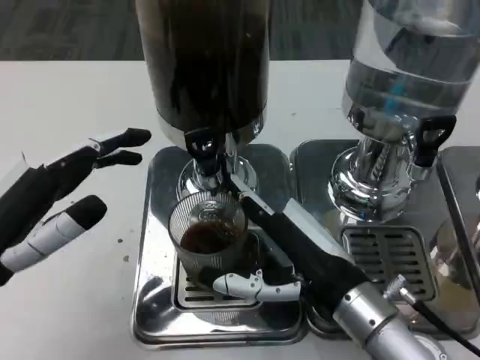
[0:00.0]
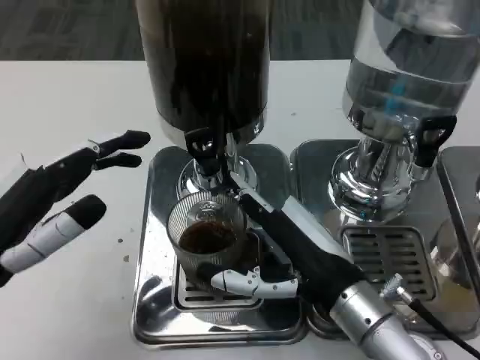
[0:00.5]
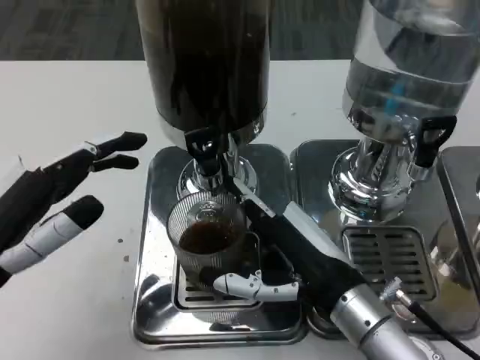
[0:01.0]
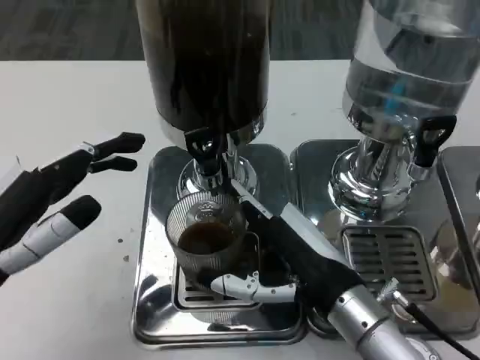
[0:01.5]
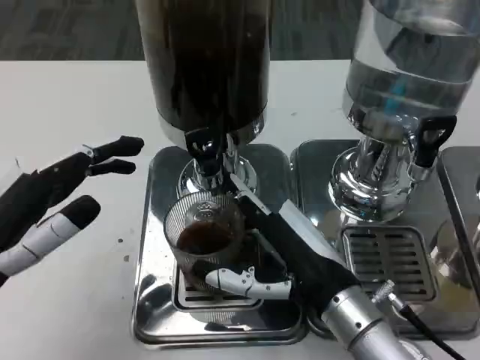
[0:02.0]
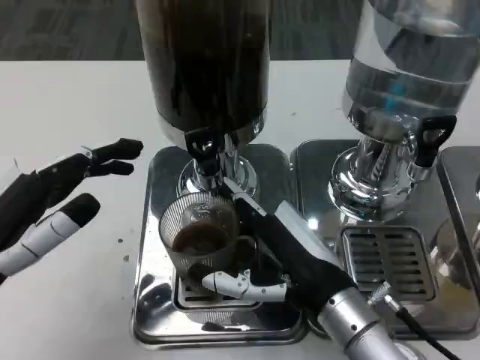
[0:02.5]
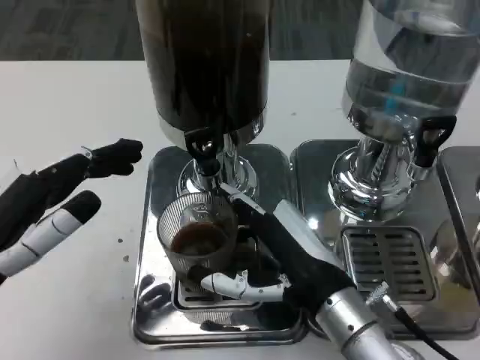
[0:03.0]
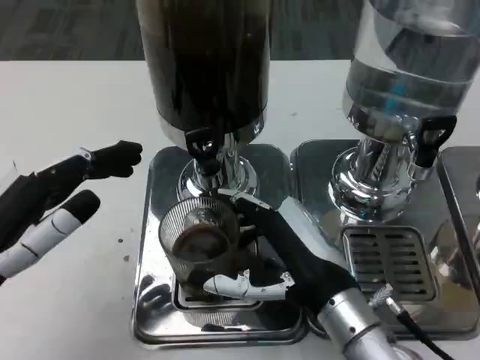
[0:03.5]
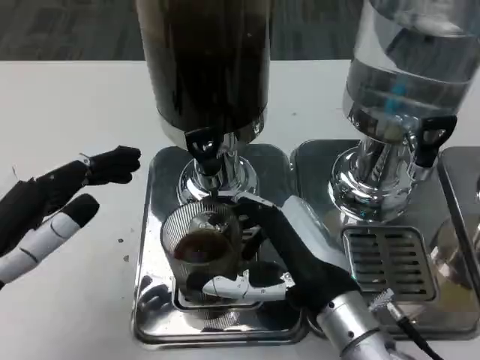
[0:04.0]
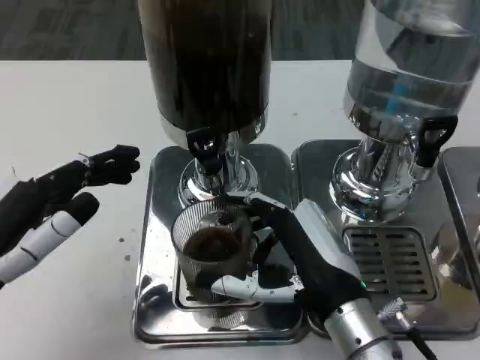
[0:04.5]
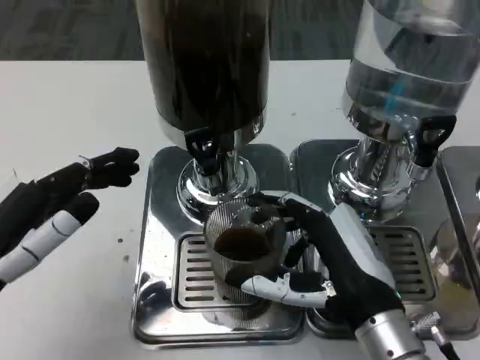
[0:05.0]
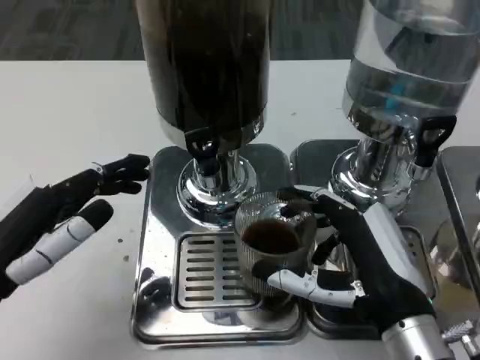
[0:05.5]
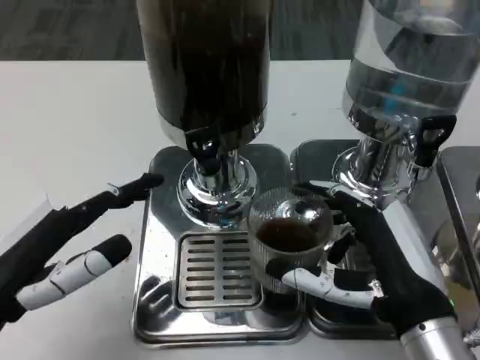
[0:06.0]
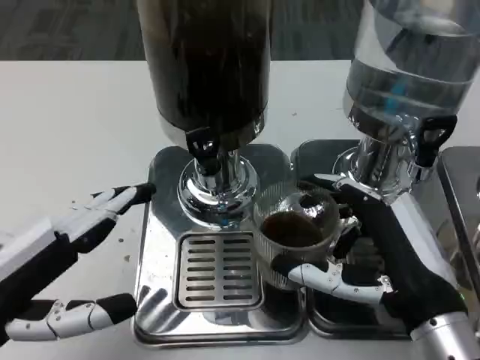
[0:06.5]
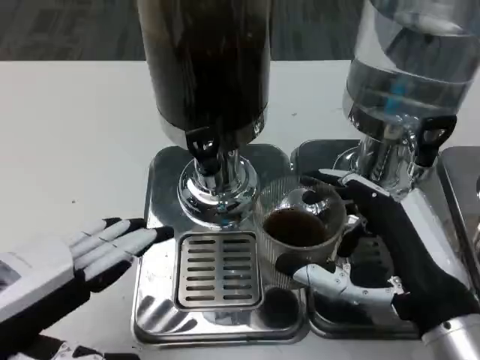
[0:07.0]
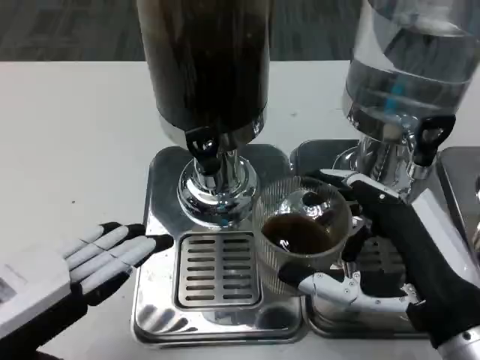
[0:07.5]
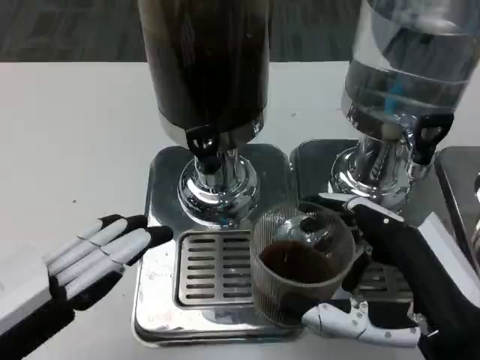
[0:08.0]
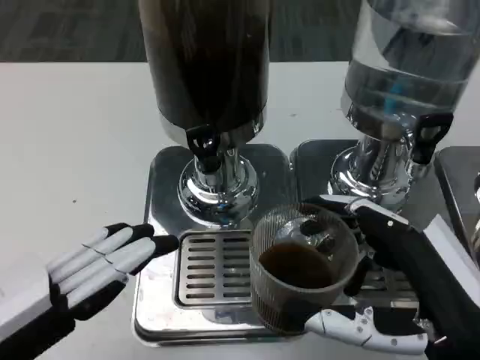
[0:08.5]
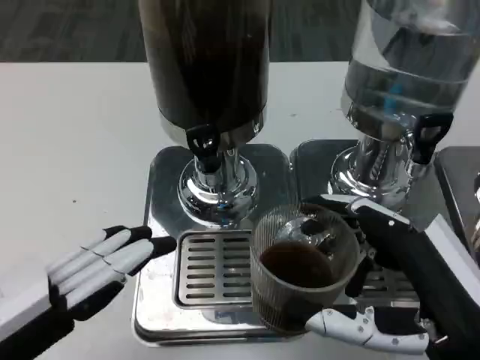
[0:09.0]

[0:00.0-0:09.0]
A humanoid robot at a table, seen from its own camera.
Task of the whole recording: Grasp the cup under the faucet to collect the drink, then remove the cup.
0:00.0 to 0:02.0: Neither hand changes place.
0:02.0 to 0:04.5: The hands make only small movements.
0:04.5 to 0:07.0: The right hand goes some 5 cm to the right.
0:07.0 to 0:09.0: The right hand moves roughly 5 cm.

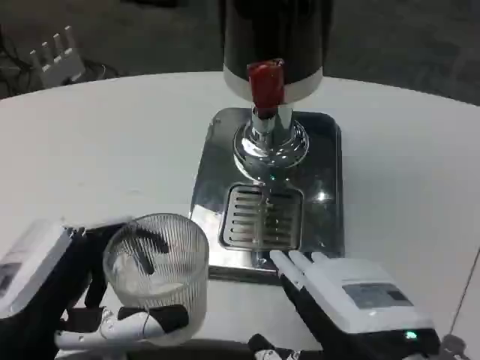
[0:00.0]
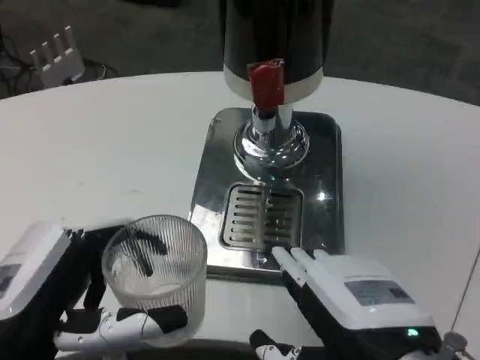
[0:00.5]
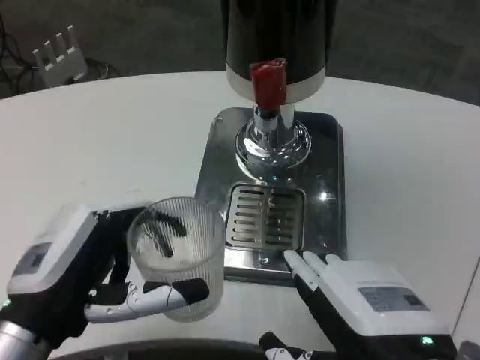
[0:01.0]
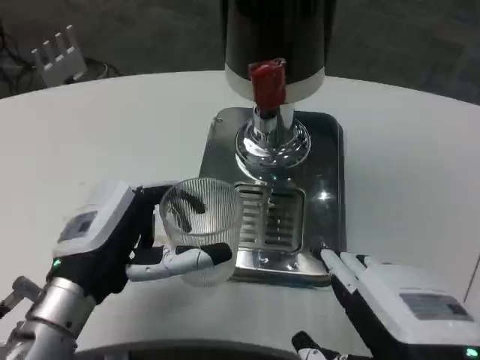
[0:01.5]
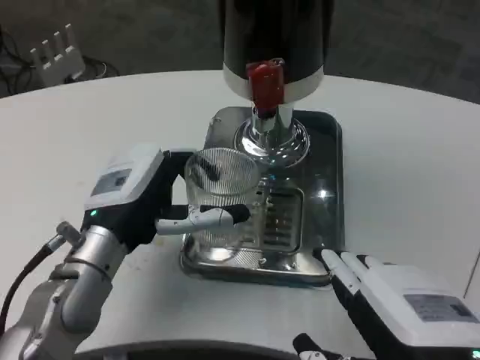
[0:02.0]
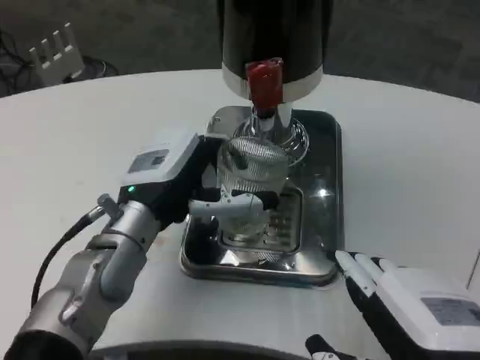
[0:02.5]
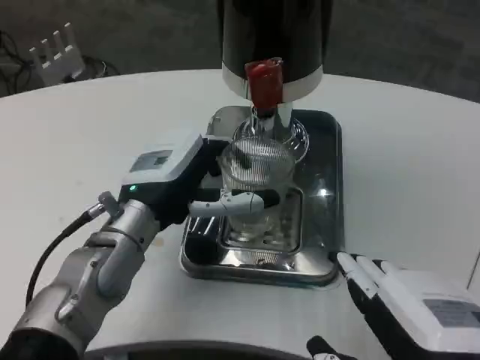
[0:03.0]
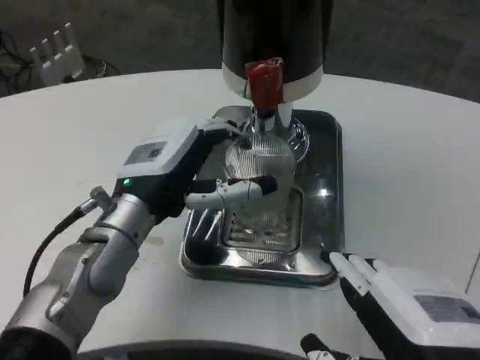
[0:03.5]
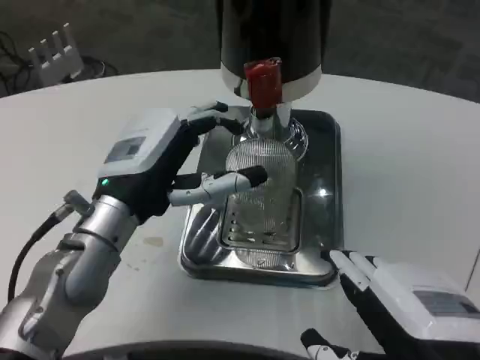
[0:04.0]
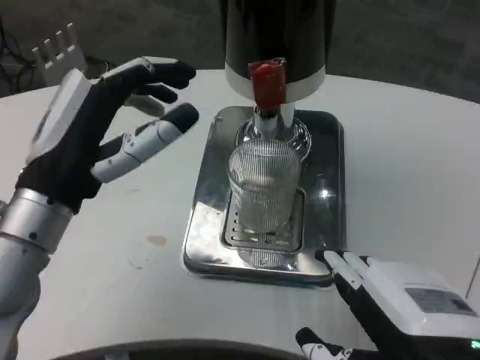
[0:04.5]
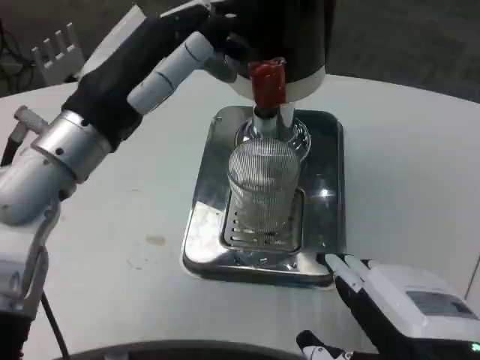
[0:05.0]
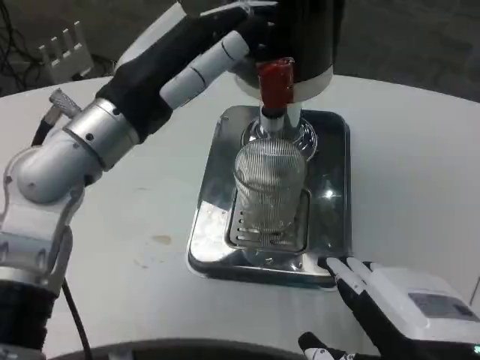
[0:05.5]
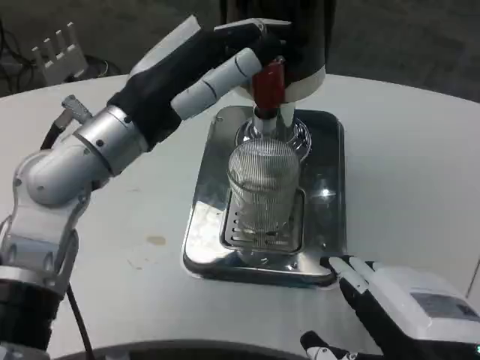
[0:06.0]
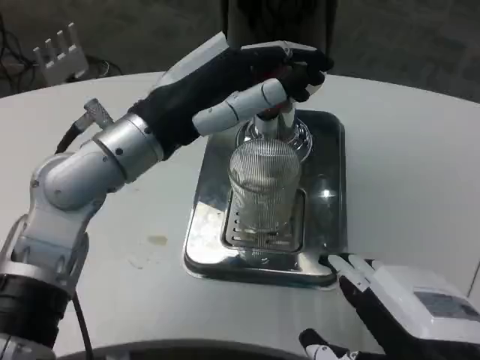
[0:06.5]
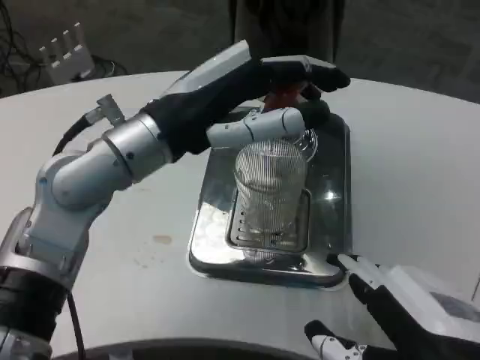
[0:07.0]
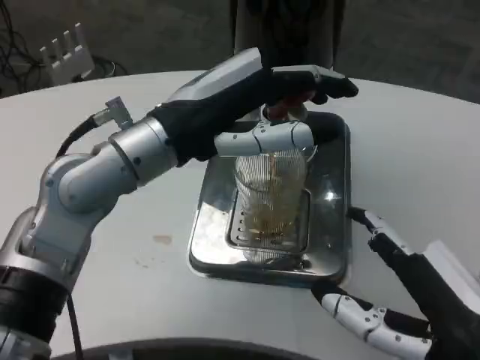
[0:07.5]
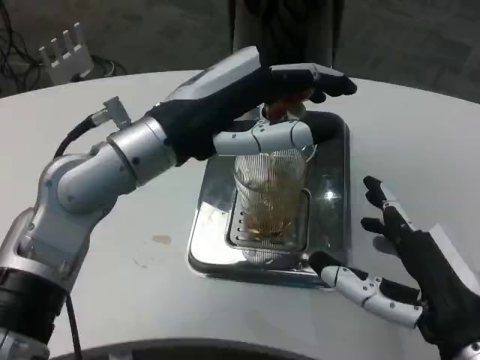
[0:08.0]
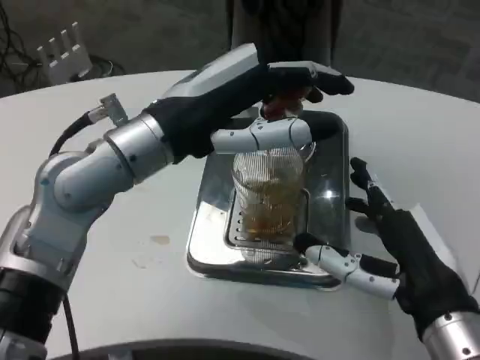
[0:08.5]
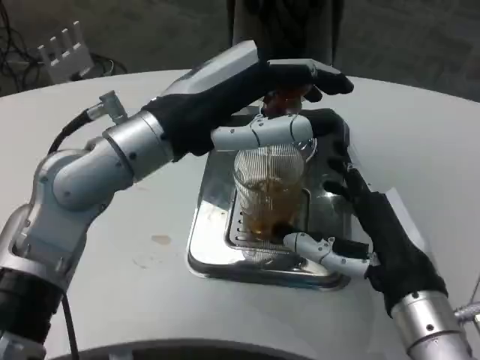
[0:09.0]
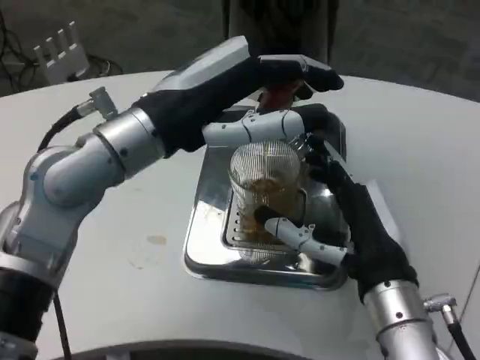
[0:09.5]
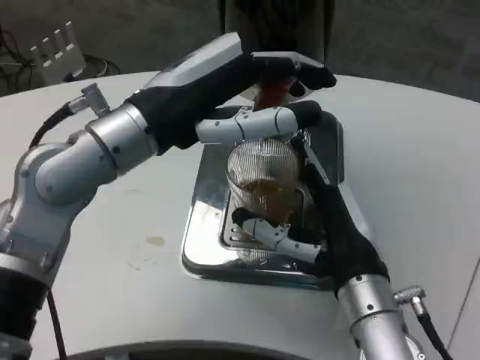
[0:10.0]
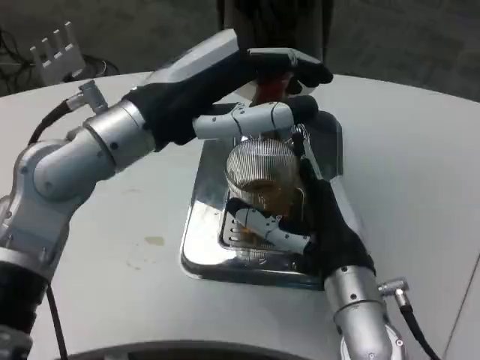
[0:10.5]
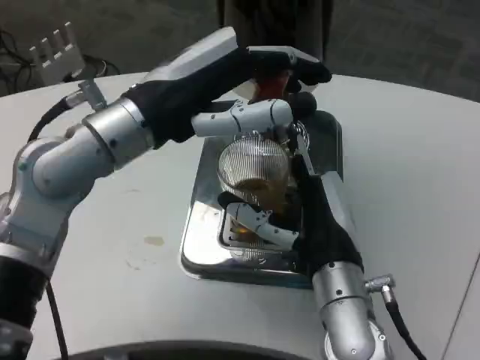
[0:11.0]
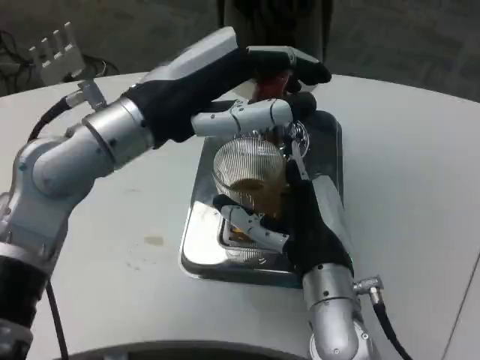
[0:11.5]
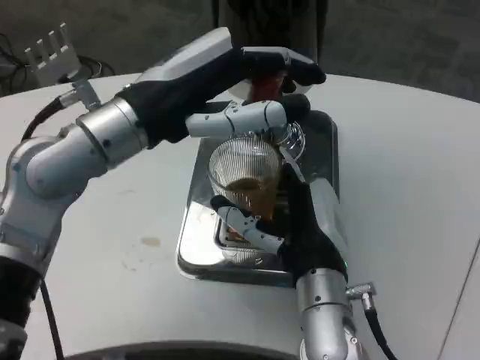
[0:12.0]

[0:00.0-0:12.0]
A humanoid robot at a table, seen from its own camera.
Task of the whole recording: Grasp the cup under the faucet to collect the drink, then remove the cup.
0:00.0 to 0:02.0: The left hand heads forward and to the right, covering some 15 cm.
0:04.0 to 0:06.0: The left hand goes about 10 cm upward.
0:06.0 to 0:08.0: The right hand ends up some 5 cm from where it was.
0:08.0 to 0:10.0: The right hand shifts about 10 cm forward and to the left.
0:10.0 to 0:12.0: The right hand ends up about 5 cm from where it was.

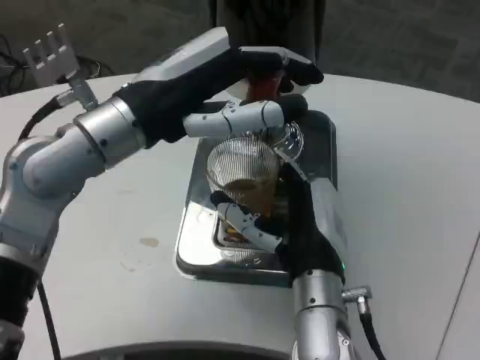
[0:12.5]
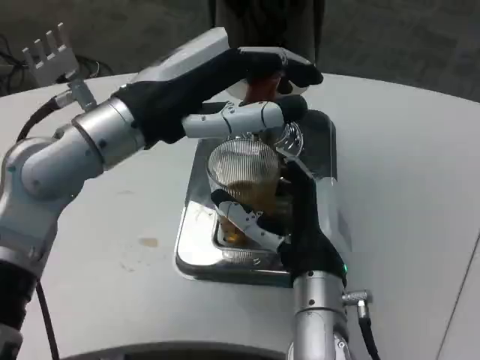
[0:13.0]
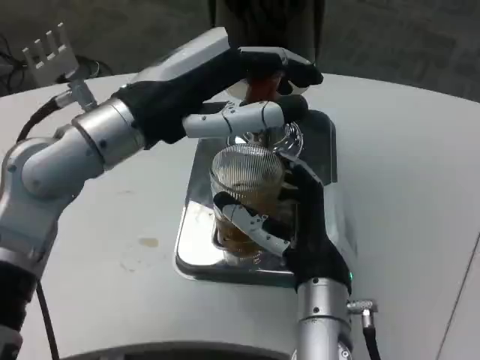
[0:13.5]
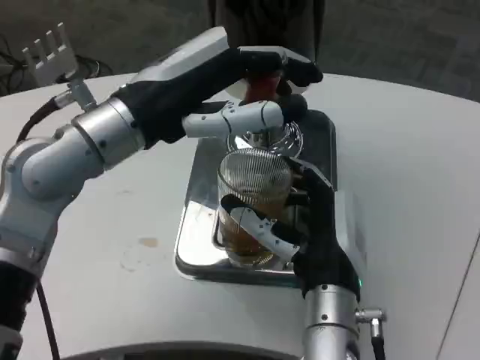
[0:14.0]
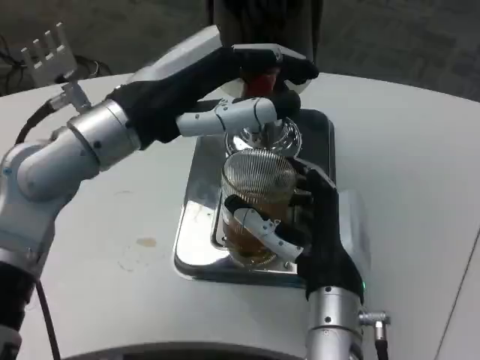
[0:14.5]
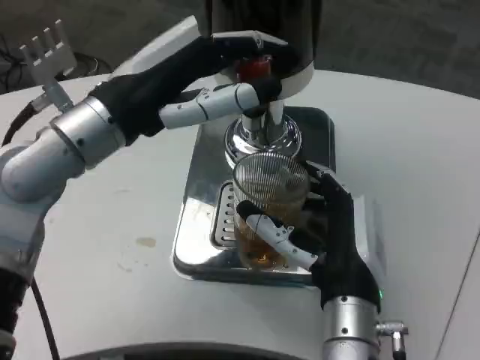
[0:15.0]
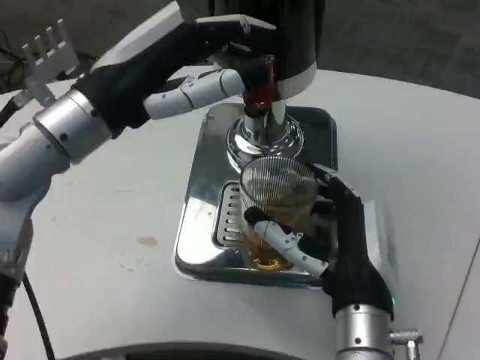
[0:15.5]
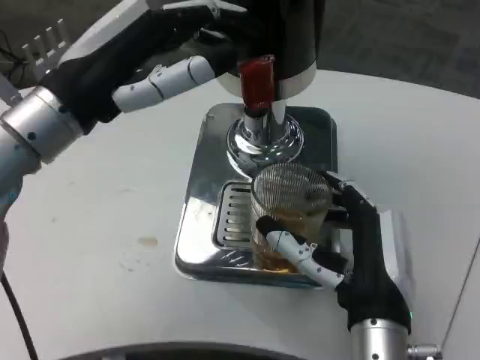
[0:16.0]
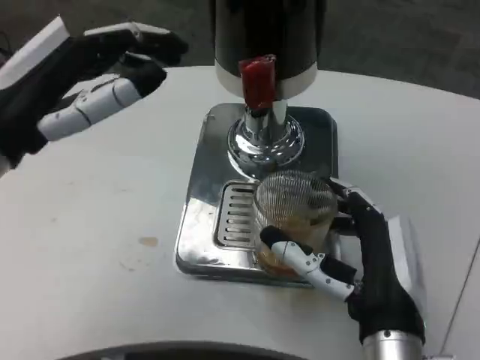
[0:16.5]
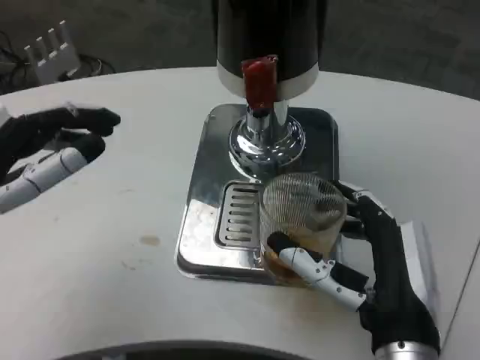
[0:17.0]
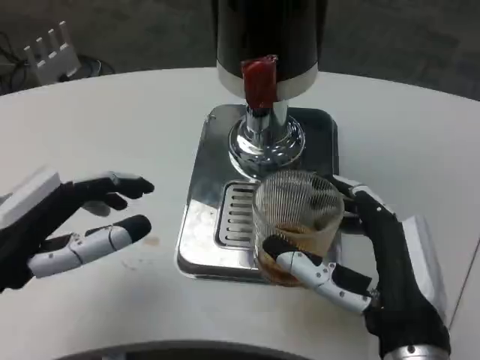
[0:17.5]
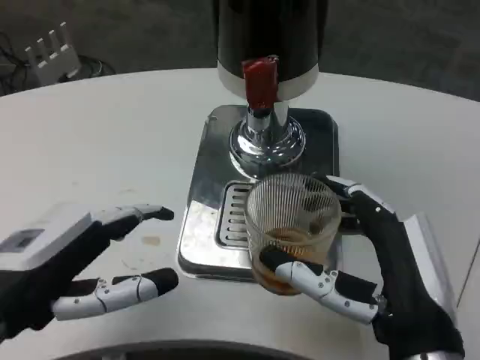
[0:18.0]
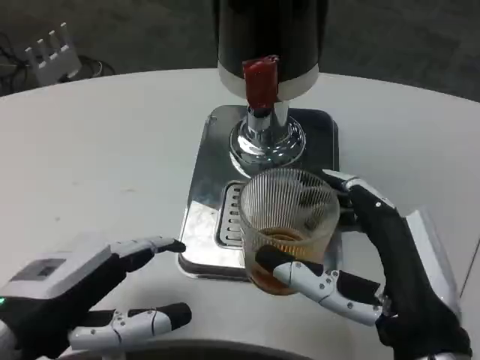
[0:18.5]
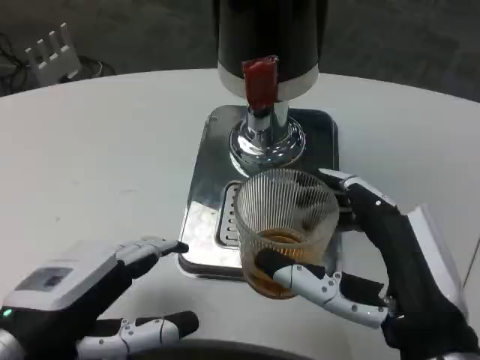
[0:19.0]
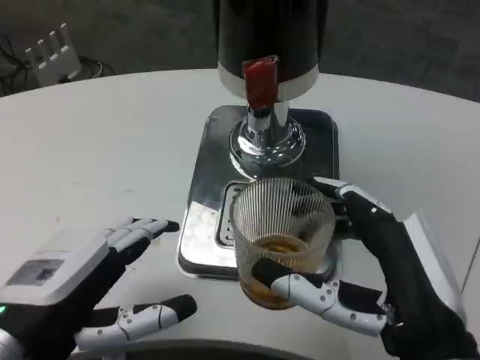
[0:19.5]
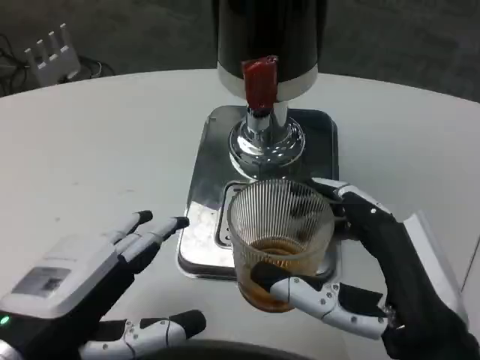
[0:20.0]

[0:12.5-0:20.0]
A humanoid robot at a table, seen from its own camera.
Task of the whole recording: Grasp the cup under the faucet to collect the drink, then remove the cup.
0:12.5 to 0:14.5: The hands make only small movements.
0:14.5 to 0:16.5: The right hand shifts by about 5 cm; the left hand shifts about 10 cm to the left and backward.
0:16.5 to 0:18.0: The right hand ends up about 5 cm from where it was, while the left hand heads downward and backward, covering approximately 10 cm.
